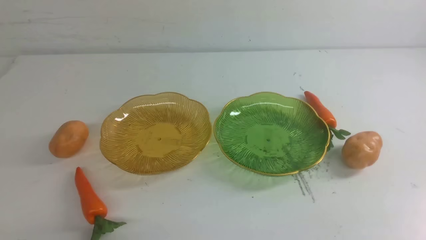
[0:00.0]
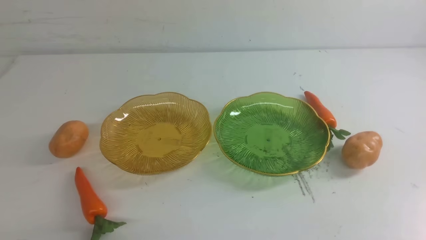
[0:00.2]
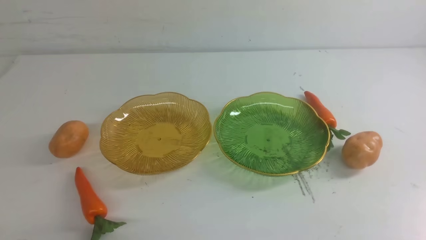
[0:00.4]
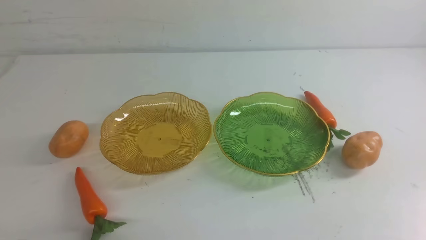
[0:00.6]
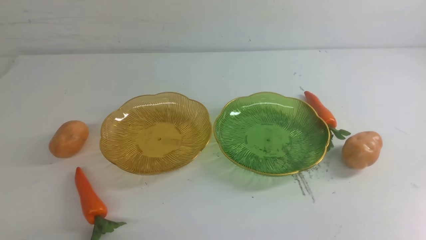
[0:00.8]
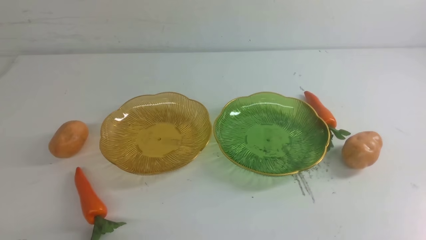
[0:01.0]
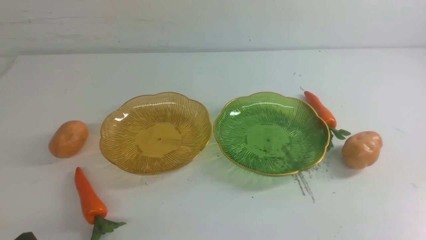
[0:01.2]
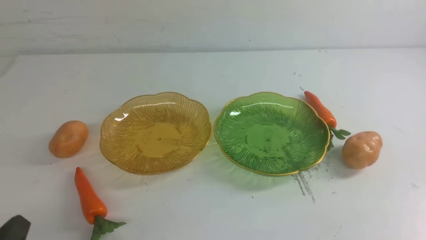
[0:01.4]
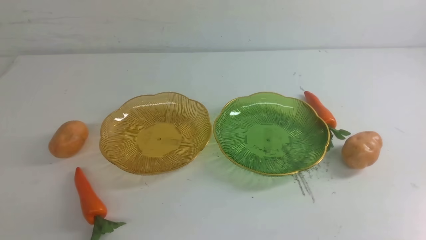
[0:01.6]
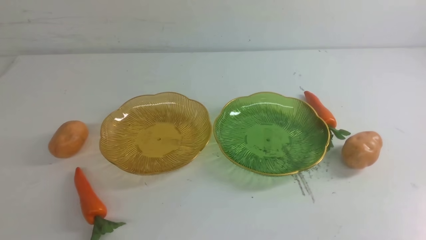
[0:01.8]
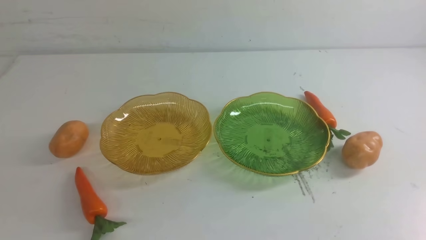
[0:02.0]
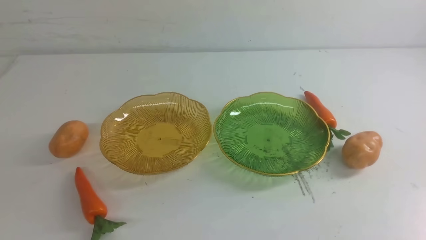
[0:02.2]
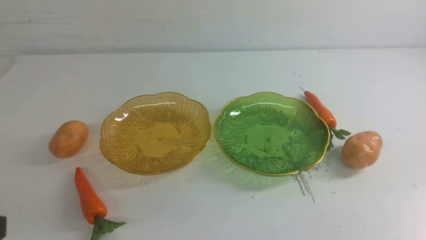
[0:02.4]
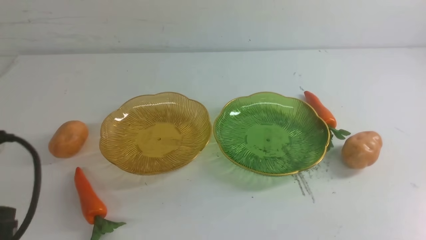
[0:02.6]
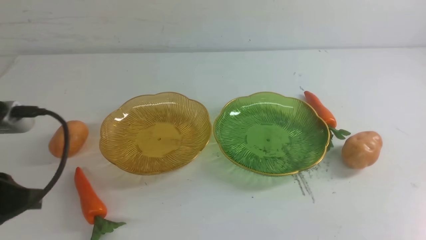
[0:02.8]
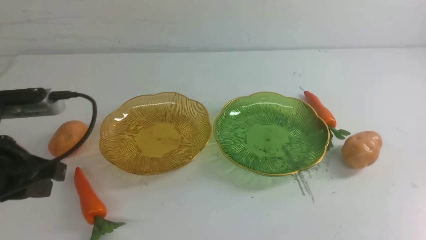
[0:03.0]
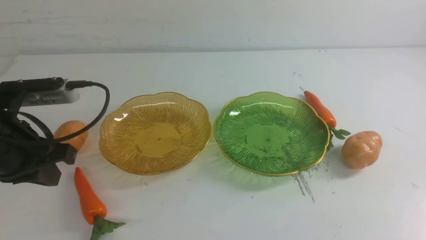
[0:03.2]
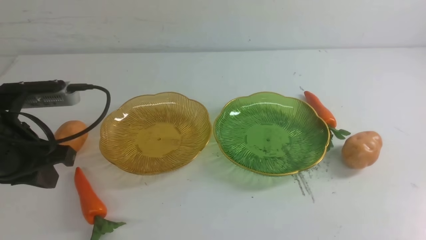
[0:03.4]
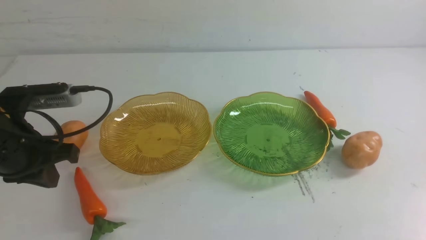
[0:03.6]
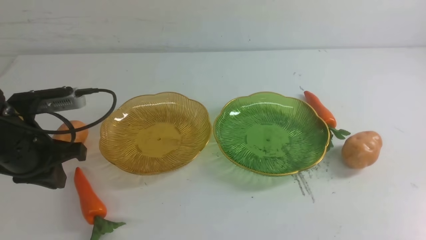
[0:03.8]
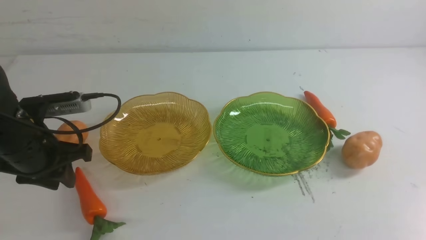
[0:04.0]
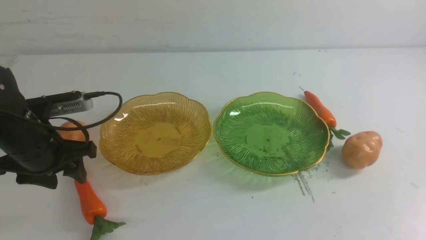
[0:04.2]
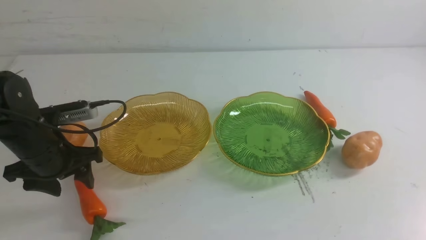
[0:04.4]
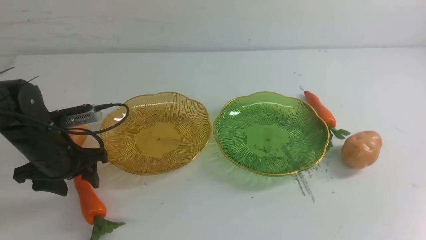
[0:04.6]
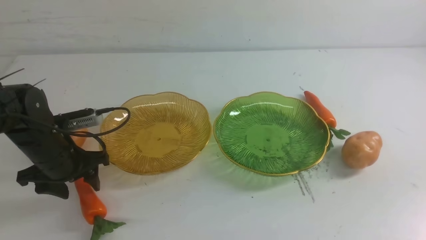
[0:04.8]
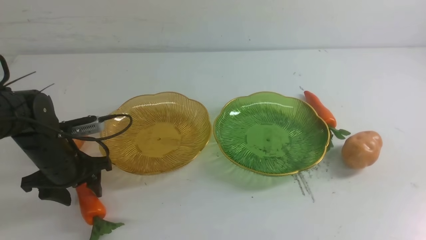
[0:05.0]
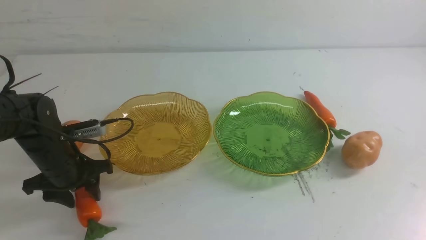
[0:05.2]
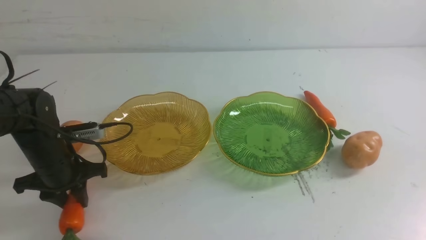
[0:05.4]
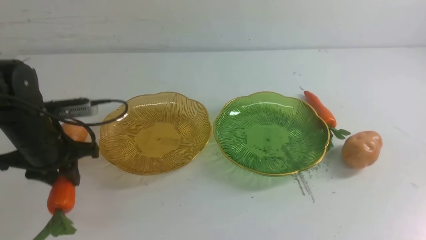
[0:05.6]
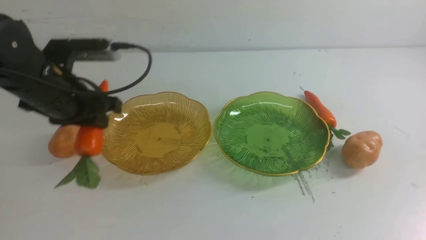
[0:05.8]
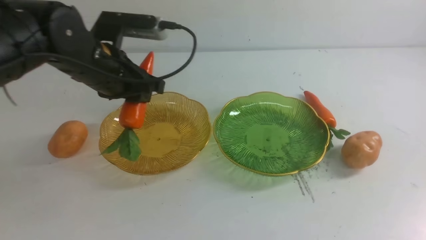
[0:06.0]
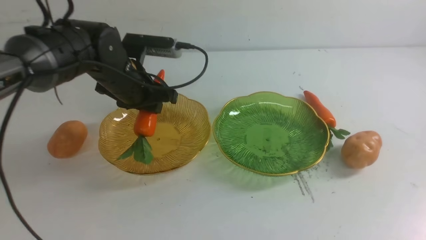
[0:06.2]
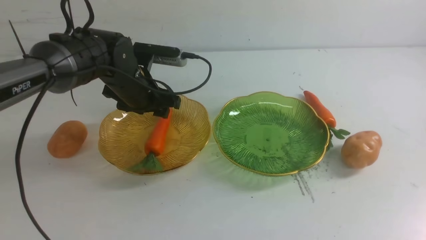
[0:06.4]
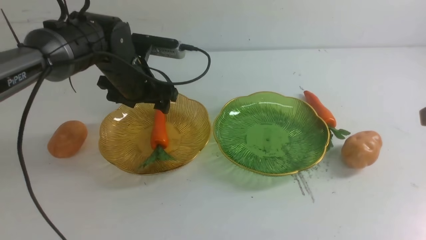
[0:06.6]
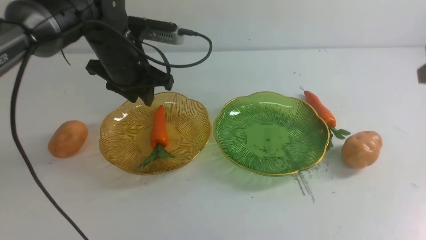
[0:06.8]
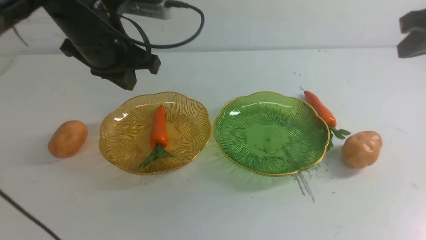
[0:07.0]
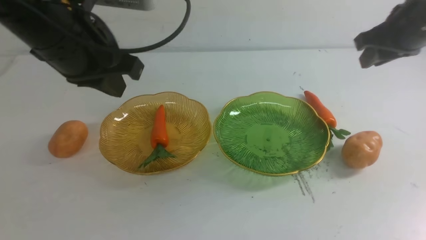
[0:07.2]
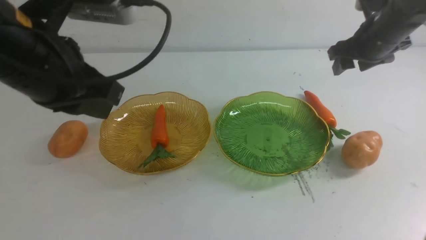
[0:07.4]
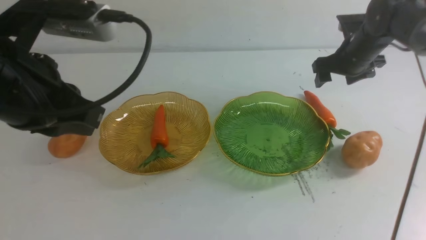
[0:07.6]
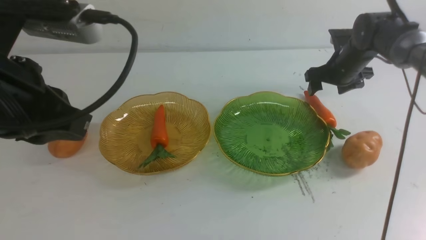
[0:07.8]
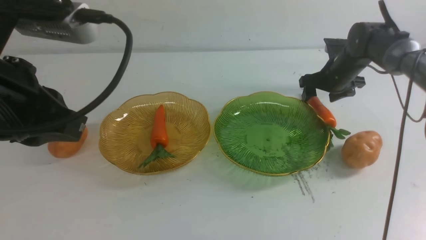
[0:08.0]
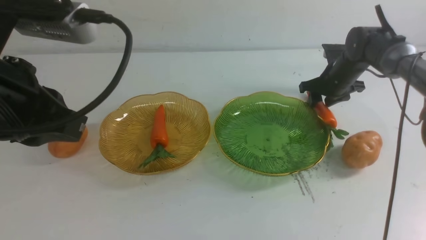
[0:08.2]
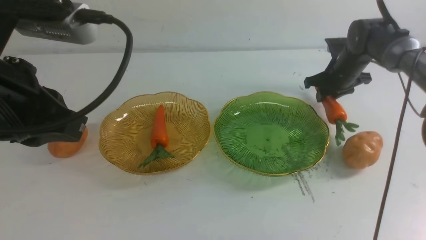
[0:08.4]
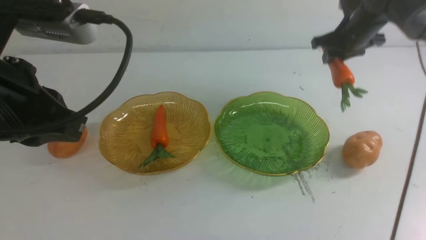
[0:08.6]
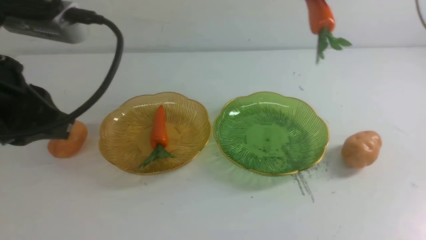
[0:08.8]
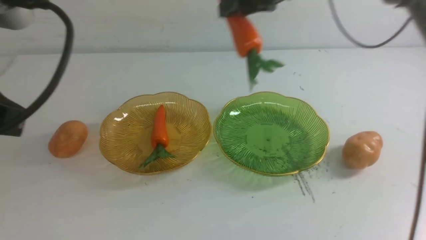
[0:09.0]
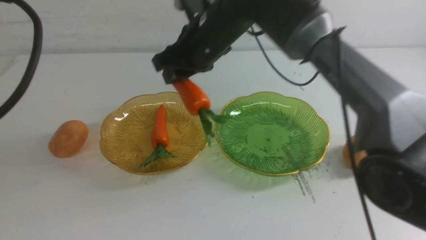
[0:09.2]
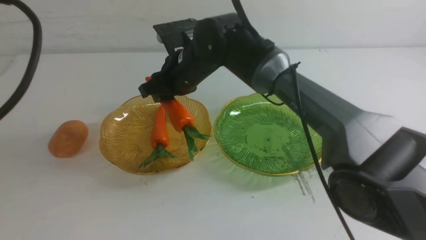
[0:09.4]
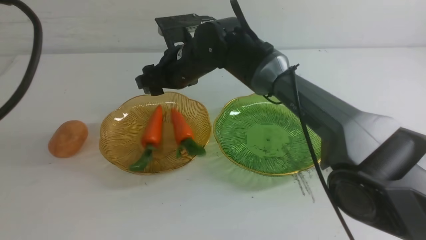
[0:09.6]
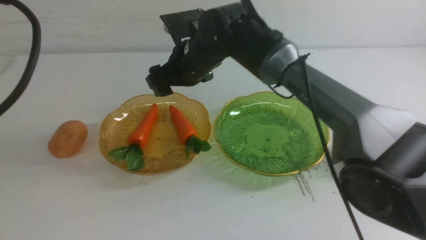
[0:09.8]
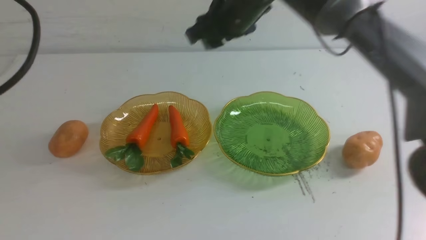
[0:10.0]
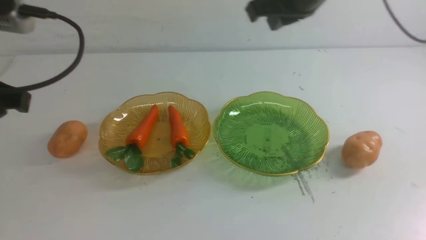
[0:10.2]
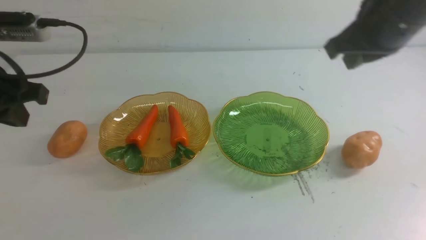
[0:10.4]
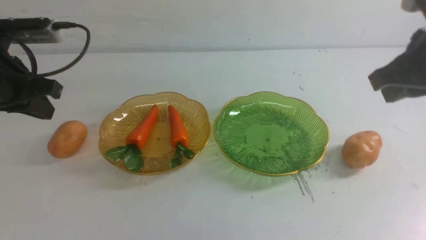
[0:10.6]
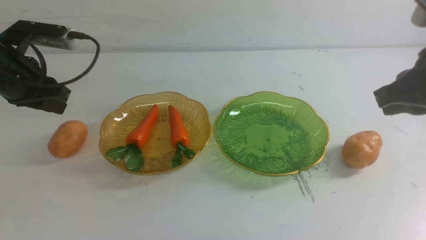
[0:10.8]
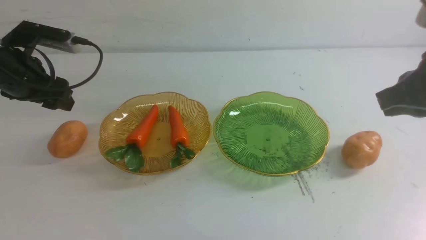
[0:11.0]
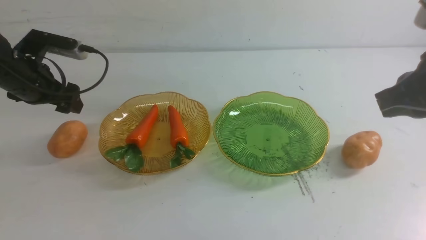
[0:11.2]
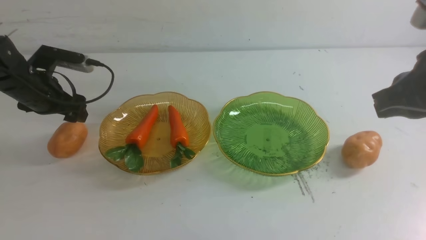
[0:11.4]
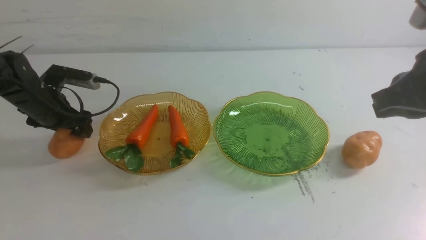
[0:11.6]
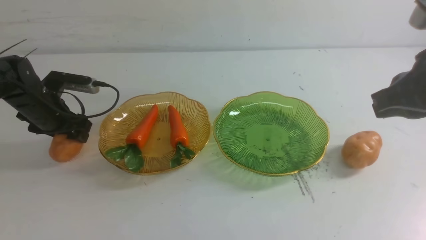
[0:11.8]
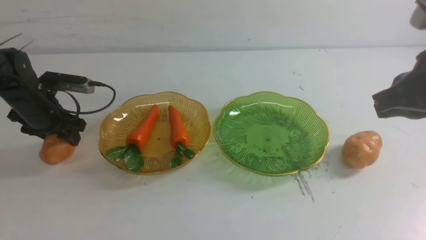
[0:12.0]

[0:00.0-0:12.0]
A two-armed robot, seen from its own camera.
Step, 0:00.0 to 0:06.6: use the left arm to grab a carrot and put it into the left plate.
Step, 0:06.8 to 0:09.8: use the right arm to grab a carrot and put it into the left plate.
0:01.6 to 0:03.0: The left gripper shifts roughly 15 cm forward and upward.
0:03.0 to 0:04.4: The left gripper moves forward and downward, some 15 cm, and opens.
0:04.4 to 0:06.0: The left gripper shifts roughly 15 cm to the right, forward and upward, while the right gripper travels upward and forward by approximately 20 cm.
0:06.0 to 0:07.6: The left gripper is displaced backward and upward by roughly 25 cm, and closes, while the right gripper goes some 40 cm forward and downward, and opens.
0:07.6 to 0:09.0: The right gripper travels upward, to the left and backward by some 25 cm, and closes.
0:09.0 to 0:10.4: The left gripper goes roughly 15 cm forward, downward and to the left. The right gripper travels backward and to the right by about 15 cm, and closes its fingers.
0:10.4 to 0:12.0: The left gripper moves forward and downward, about 20 cm, and opens its fingers. Meanwhile the right gripper is displaced backward and to the right by approximately 10 cm.

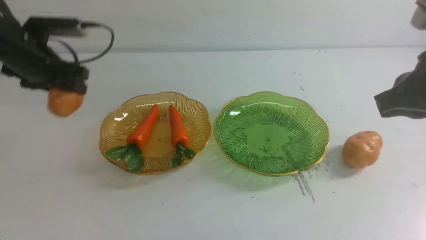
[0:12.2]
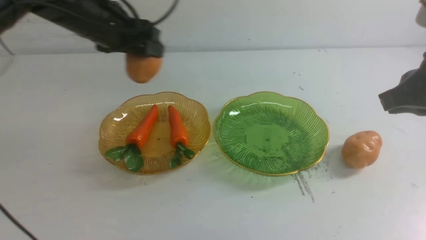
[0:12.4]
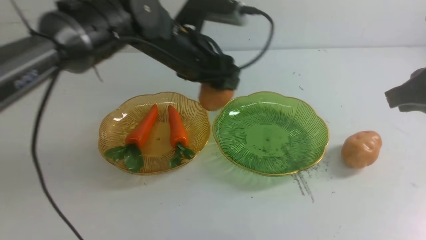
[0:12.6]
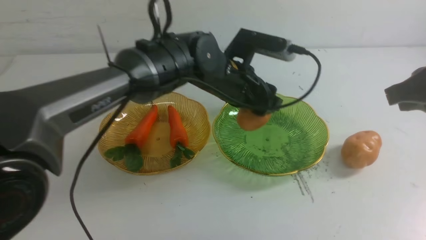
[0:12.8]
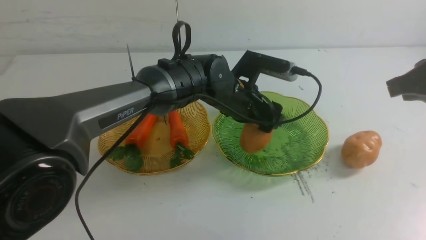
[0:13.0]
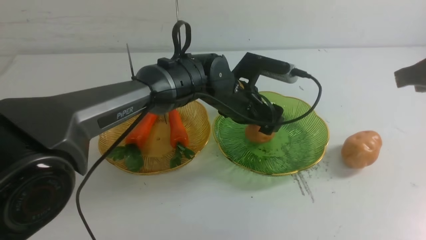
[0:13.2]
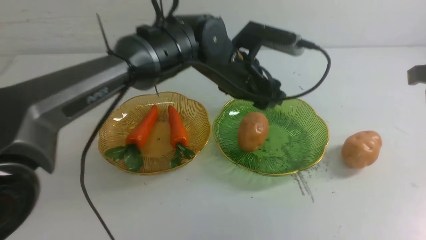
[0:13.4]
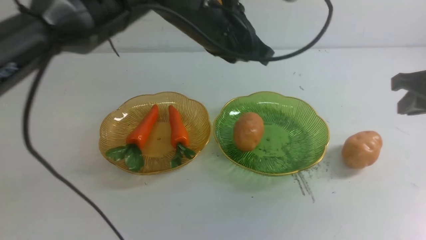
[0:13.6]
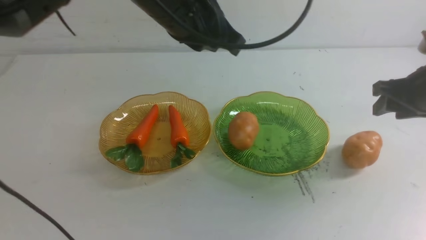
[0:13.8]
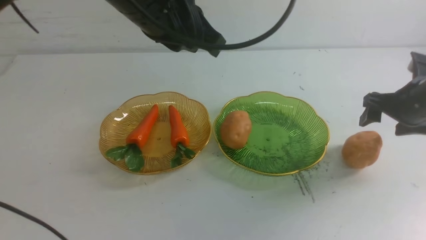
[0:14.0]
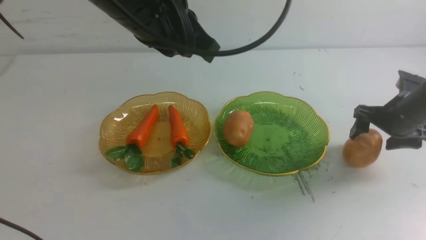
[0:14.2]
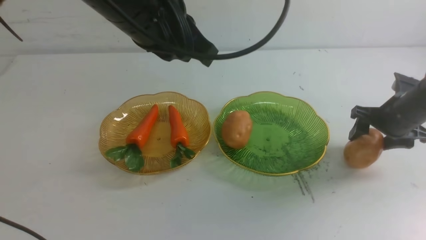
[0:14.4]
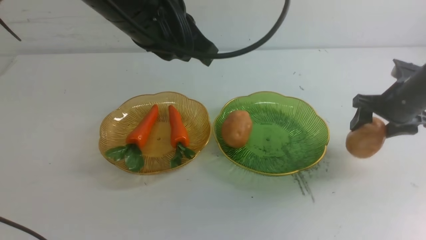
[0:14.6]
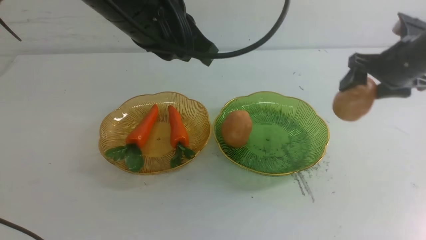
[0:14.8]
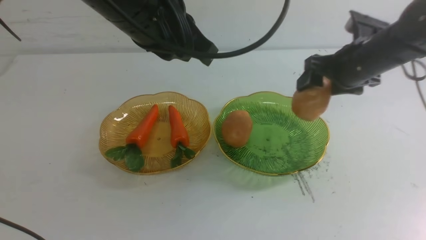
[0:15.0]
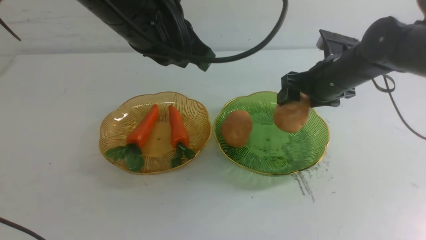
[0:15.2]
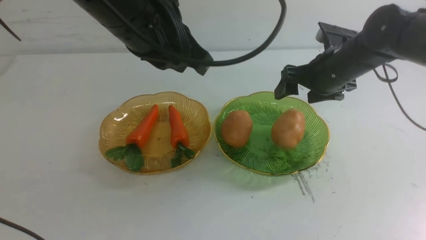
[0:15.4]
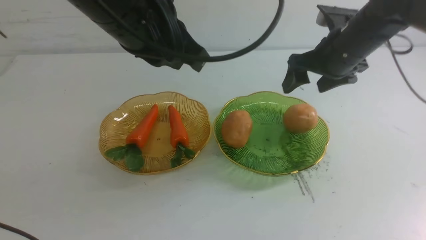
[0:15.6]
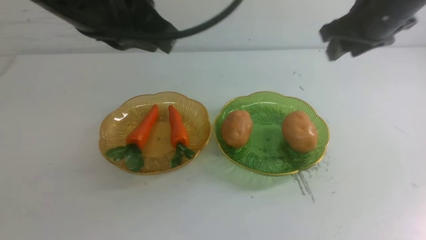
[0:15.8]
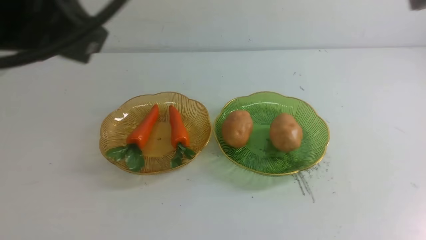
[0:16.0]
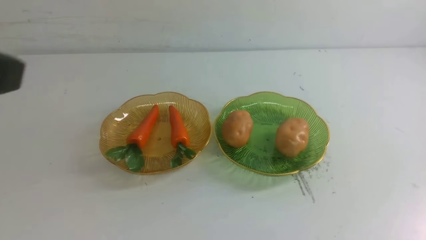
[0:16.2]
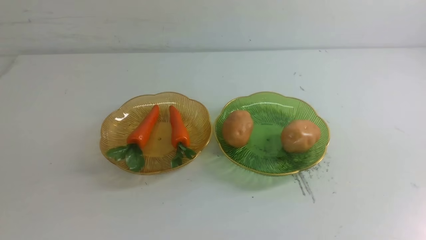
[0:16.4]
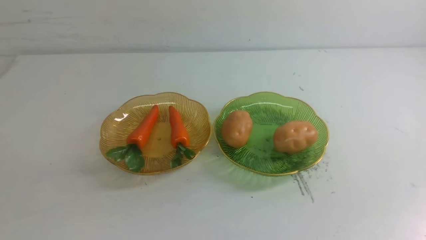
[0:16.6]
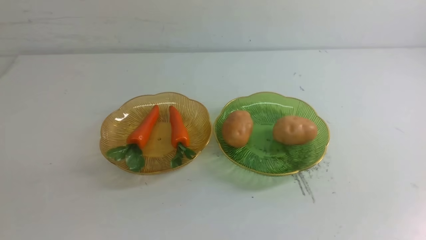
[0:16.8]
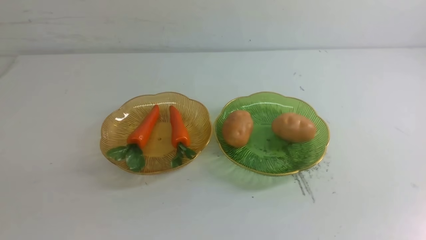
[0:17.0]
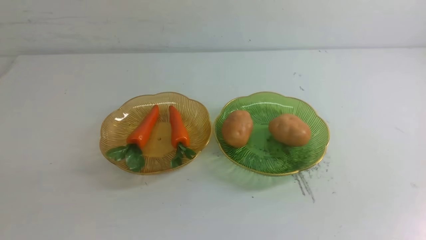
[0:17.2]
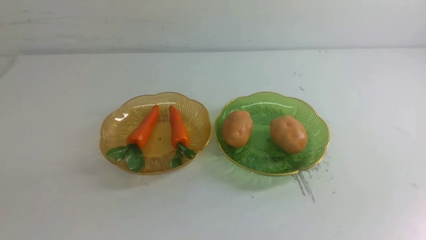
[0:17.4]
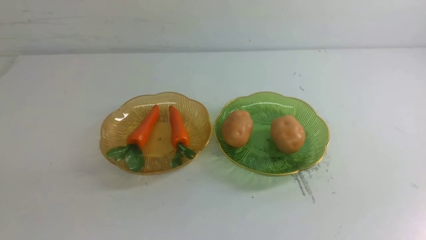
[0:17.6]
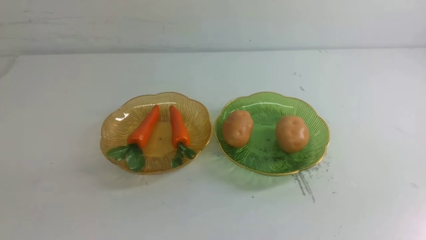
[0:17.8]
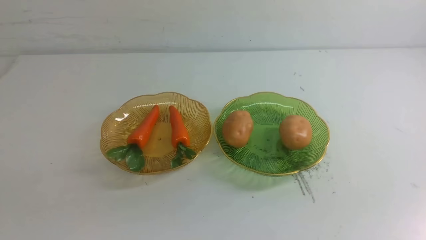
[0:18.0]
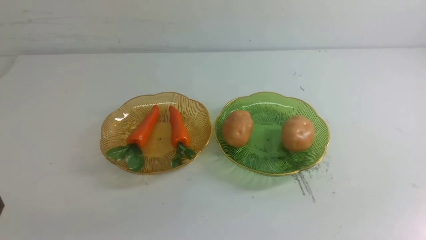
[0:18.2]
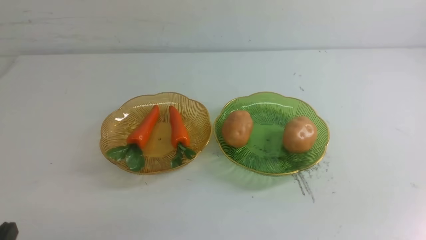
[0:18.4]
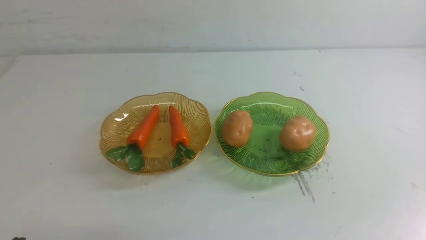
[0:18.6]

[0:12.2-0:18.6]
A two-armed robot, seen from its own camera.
Step, 0:13.6 to 0:15.6: Grab a potato with your right arm and put it on the right plate.
0:12.2 to 0:13.8: The left gripper moves to the right, upward and backward, roughly 25 cm, and closes its fingers, while the right gripper heads downward, forward and to the right, covering some 20 cm, and opens its fingers.
0:13.8 to 0:15.4: The right gripper goes approximately 15 cm to the left and upward.
0:15.4 to 0:17.0: The left gripper moves backward and to the left, some 30 cm. Meanwhile the right gripper shifts roughly 40 cm backward, and closes its fingers.
